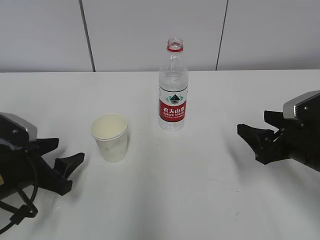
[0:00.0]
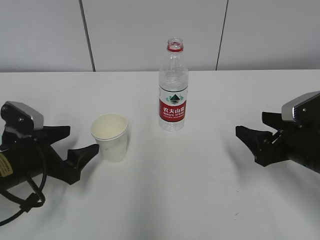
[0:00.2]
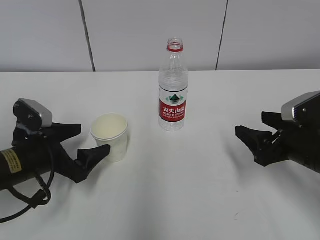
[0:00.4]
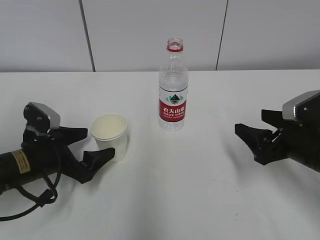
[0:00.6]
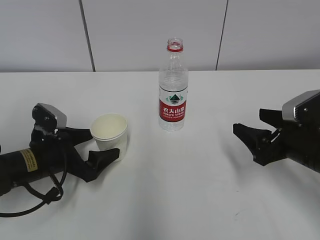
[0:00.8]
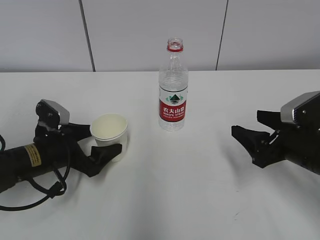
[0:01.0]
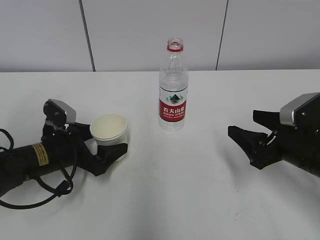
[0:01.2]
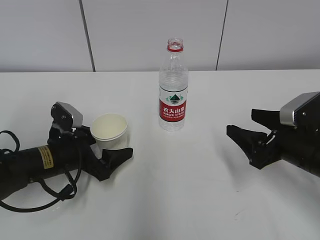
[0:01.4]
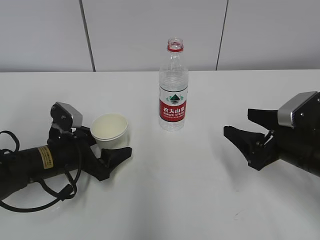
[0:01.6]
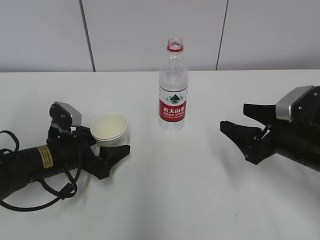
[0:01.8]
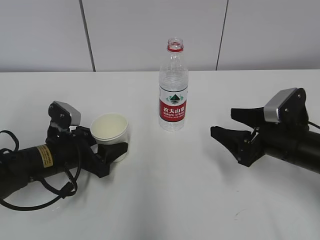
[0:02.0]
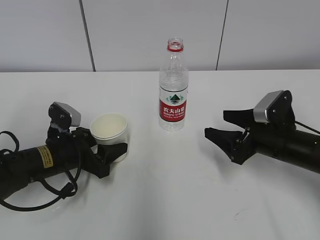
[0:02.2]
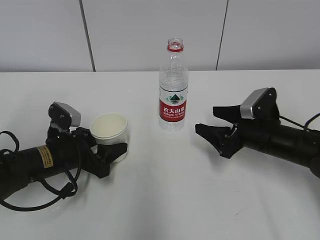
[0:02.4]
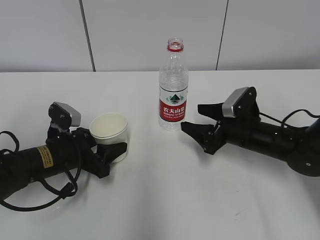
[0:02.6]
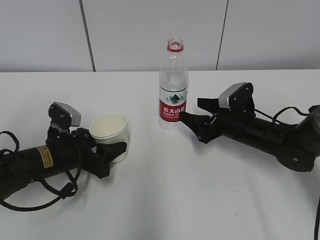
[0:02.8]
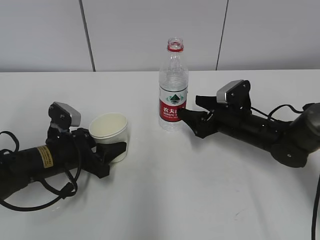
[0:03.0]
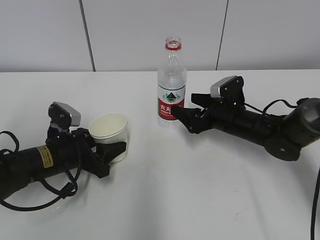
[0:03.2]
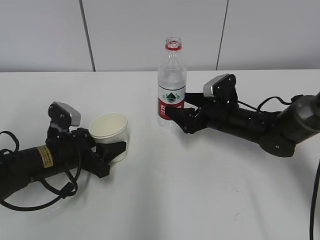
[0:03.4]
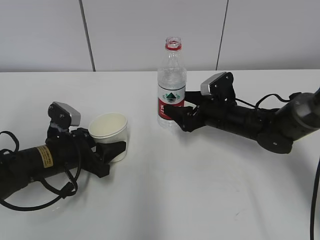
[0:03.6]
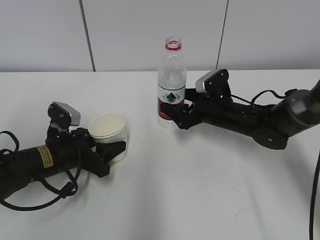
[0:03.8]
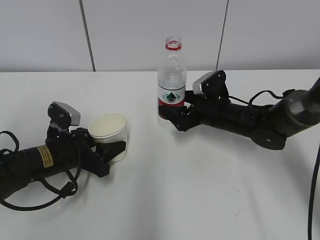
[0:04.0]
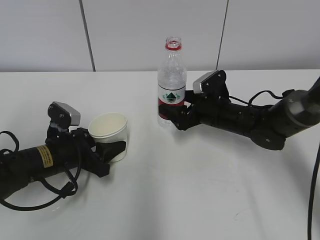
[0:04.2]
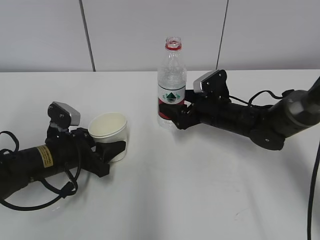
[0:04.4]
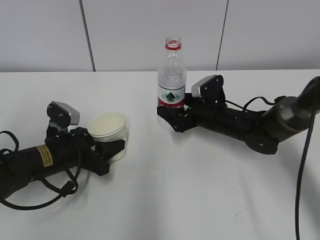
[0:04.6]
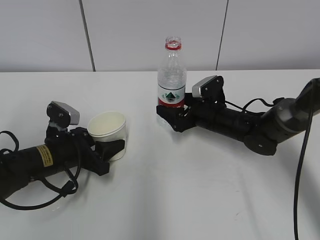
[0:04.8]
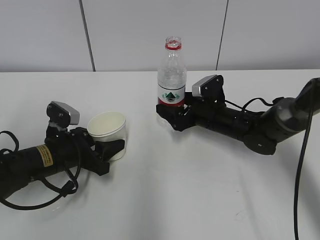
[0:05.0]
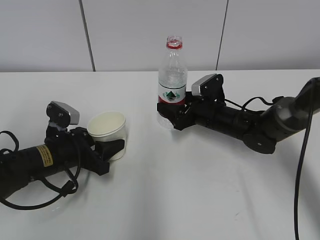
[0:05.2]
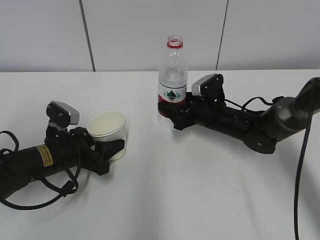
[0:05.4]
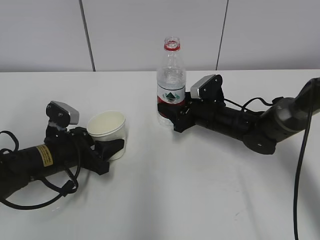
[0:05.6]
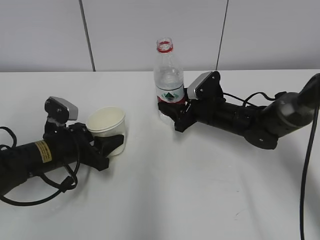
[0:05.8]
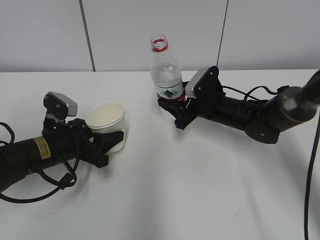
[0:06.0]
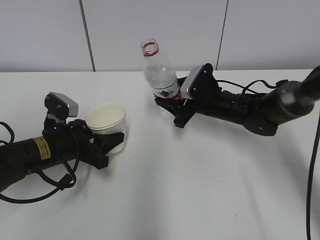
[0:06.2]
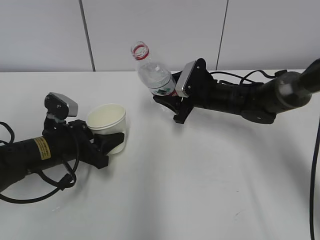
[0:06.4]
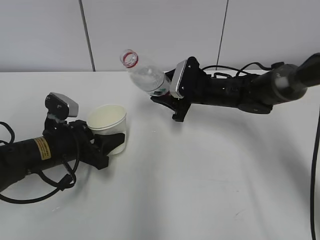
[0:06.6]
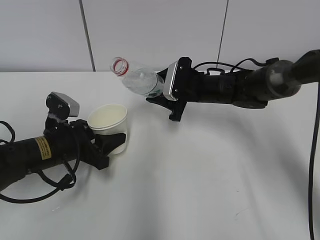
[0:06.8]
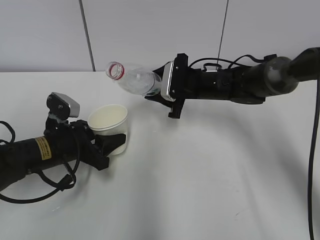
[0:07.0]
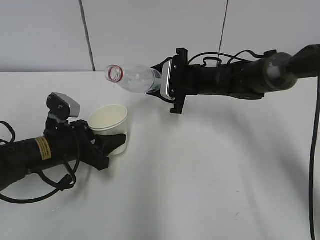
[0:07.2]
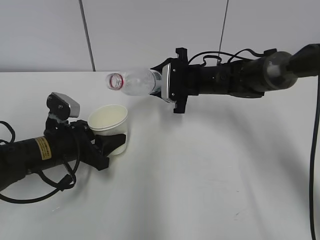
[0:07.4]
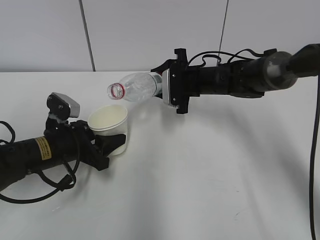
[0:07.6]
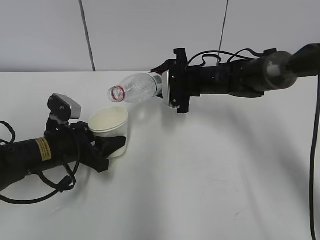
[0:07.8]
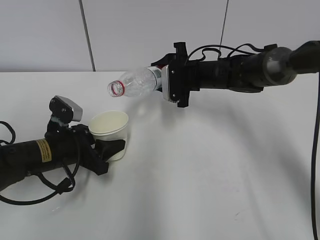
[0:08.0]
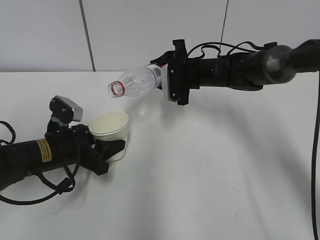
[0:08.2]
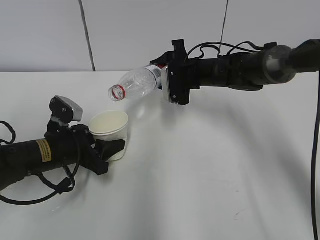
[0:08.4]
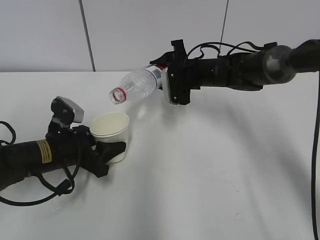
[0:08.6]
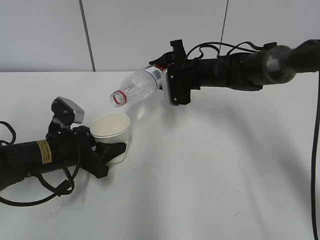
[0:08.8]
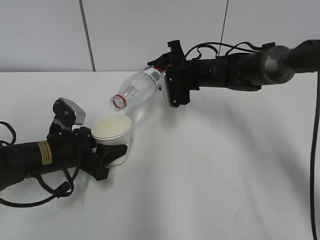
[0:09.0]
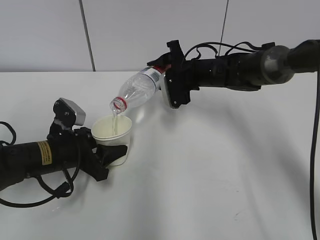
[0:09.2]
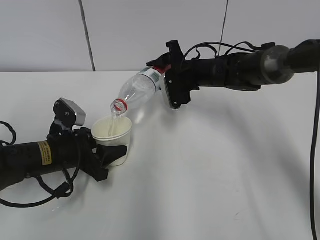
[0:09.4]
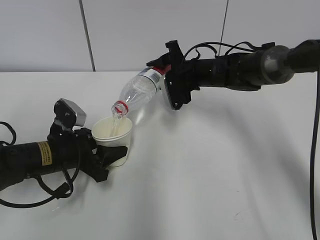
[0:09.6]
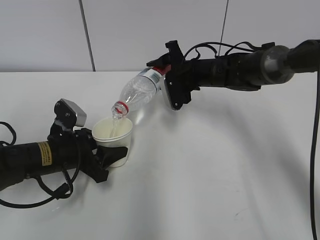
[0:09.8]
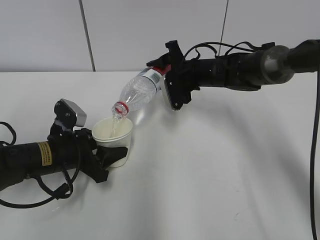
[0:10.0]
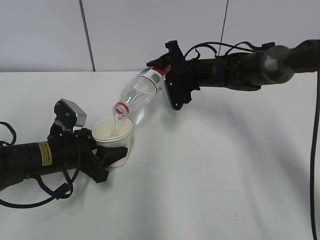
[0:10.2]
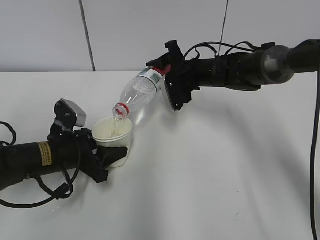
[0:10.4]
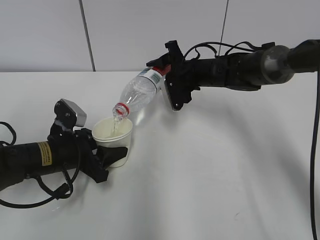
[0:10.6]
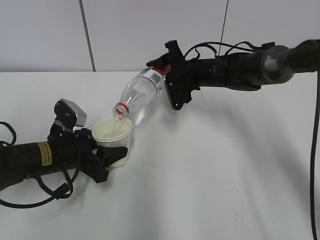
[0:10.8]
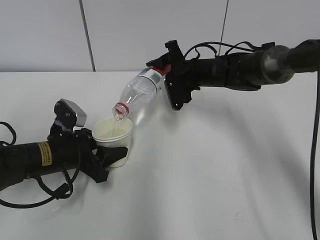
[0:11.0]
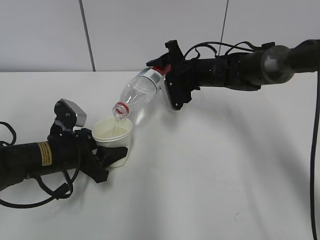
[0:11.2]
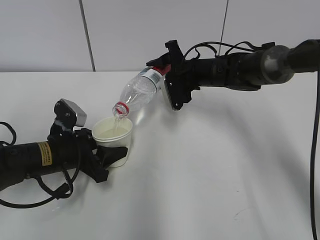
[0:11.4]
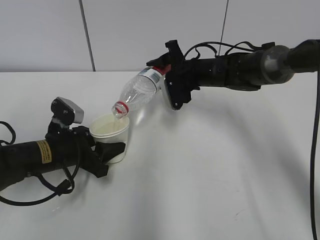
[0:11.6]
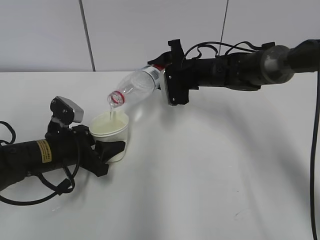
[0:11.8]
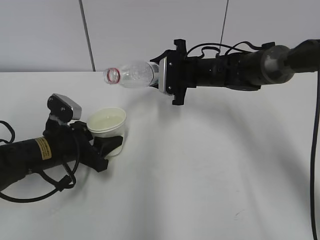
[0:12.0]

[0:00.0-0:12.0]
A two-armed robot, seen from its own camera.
Step, 0:00.0 to 0:03.6: Grab the water bottle with the right hand.
Step, 0:04.0 to 0:06.6: Lift the paper cup with the left hand.
Step, 0:06.8 to 0:09.0: Fill water with the left hand.
Step, 0:06.8 to 0:09.0: Pour water with the right hand.
0:00.0 to 0:01.6: The left gripper shifts approximately 10 cm forward and to the right.
0:01.6 to 0:03.0: The left gripper closes. Meanwhile the right gripper travels forward, downward and to the left by roughly 15 cm.
0:03.0 to 0:04.4: The right gripper opens up.
0:04.4 to 0:06.0: The right gripper closes up.
0:06.0 to 0:07.6: The right gripper ends up approximately 5 cm from where it was.
0:07.6 to 0:09.0: The grippers move only a little.
0:09.0 to 0:10.4: There are only small adjustments of the grippers.

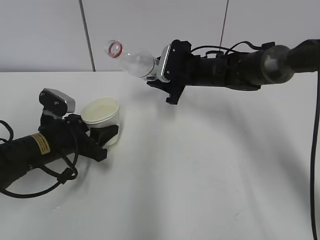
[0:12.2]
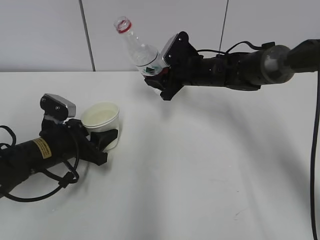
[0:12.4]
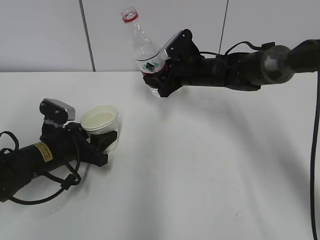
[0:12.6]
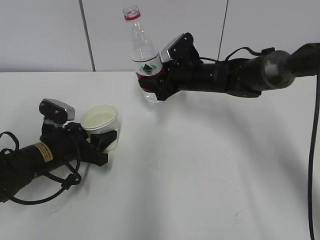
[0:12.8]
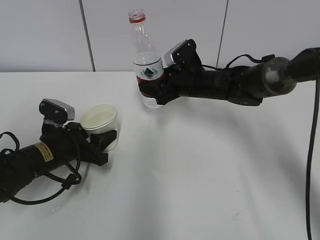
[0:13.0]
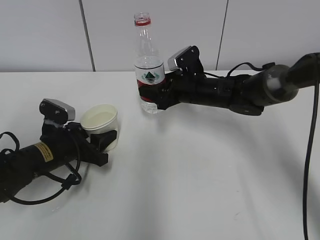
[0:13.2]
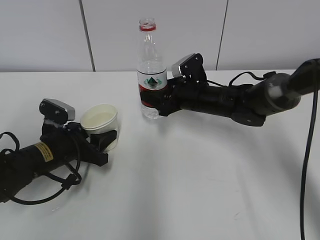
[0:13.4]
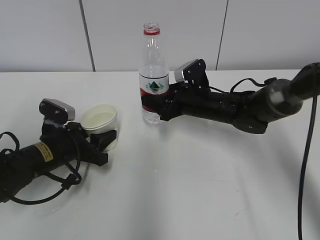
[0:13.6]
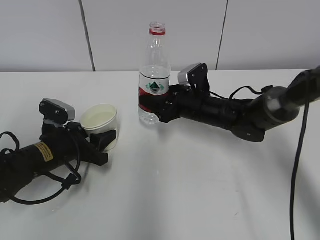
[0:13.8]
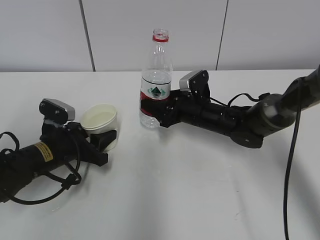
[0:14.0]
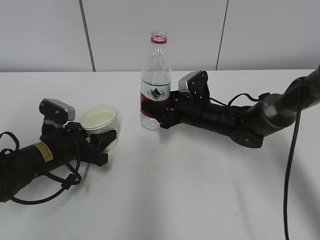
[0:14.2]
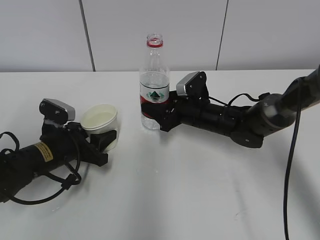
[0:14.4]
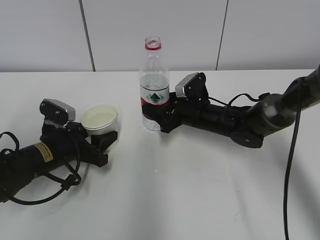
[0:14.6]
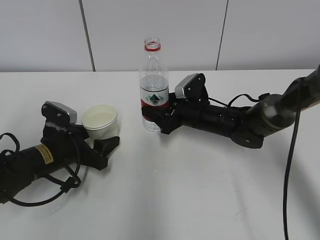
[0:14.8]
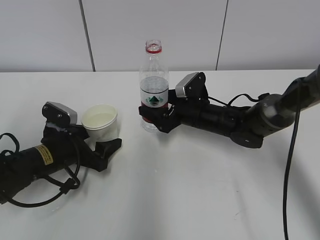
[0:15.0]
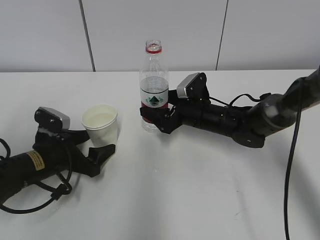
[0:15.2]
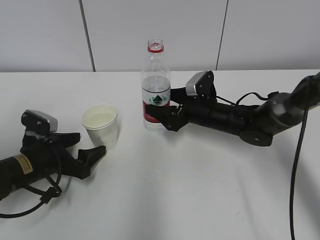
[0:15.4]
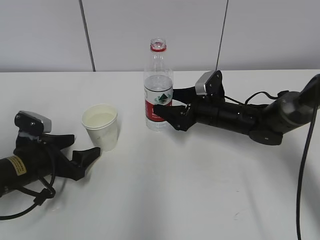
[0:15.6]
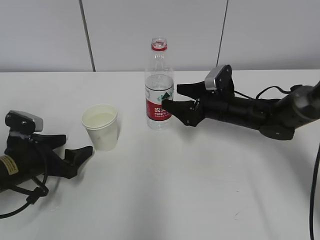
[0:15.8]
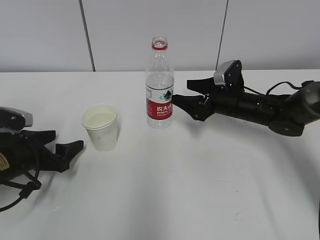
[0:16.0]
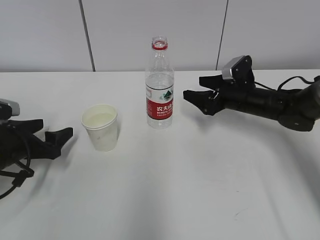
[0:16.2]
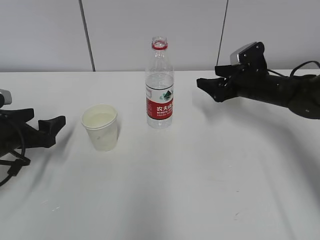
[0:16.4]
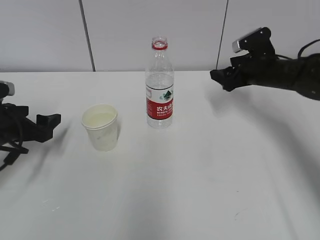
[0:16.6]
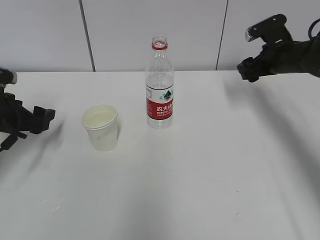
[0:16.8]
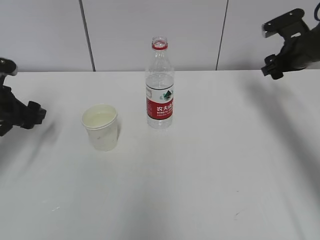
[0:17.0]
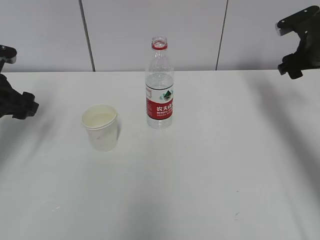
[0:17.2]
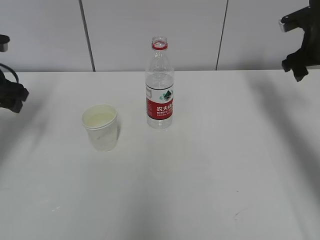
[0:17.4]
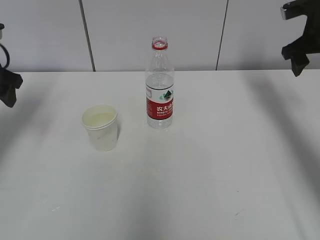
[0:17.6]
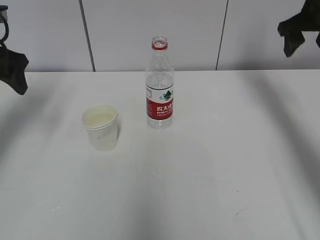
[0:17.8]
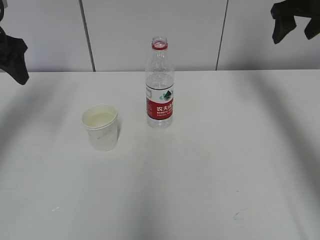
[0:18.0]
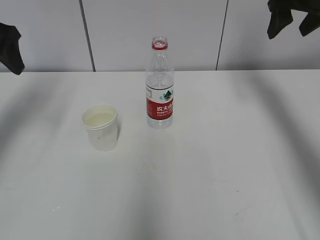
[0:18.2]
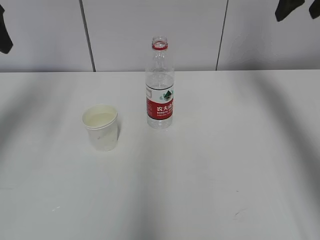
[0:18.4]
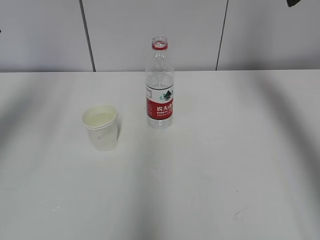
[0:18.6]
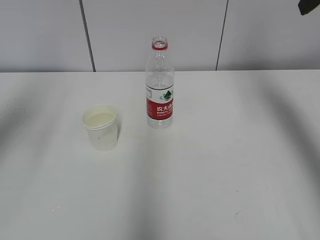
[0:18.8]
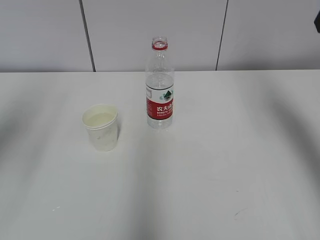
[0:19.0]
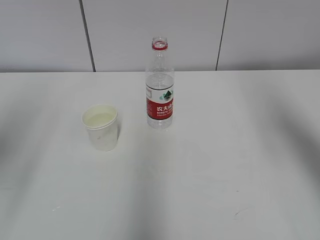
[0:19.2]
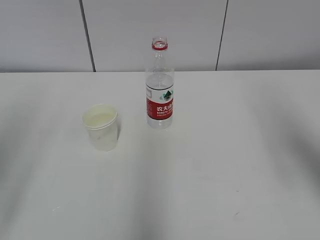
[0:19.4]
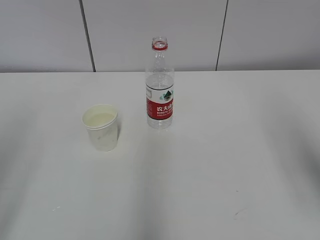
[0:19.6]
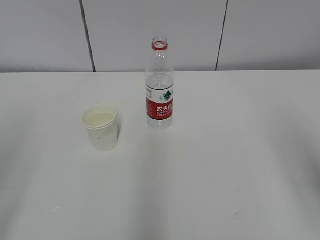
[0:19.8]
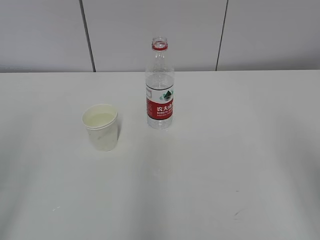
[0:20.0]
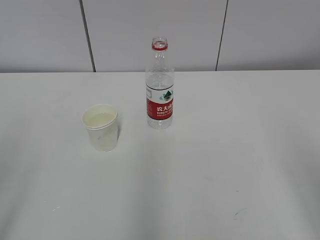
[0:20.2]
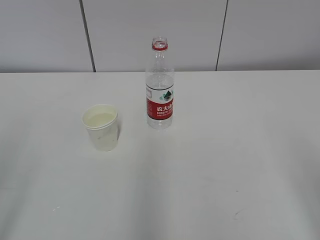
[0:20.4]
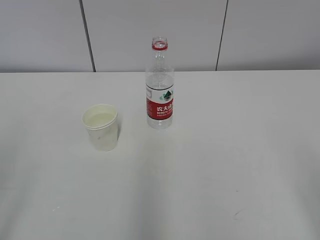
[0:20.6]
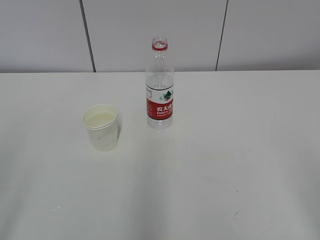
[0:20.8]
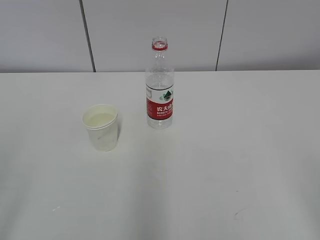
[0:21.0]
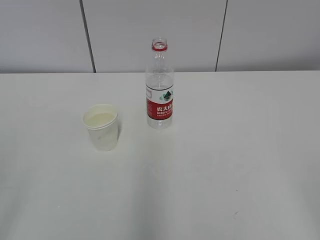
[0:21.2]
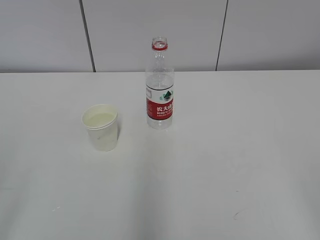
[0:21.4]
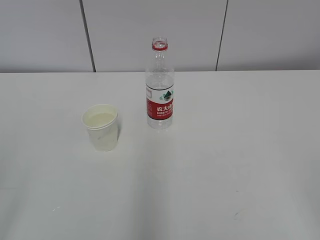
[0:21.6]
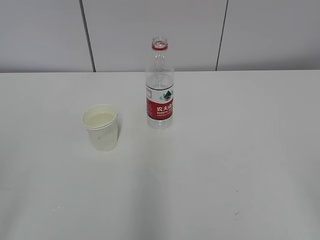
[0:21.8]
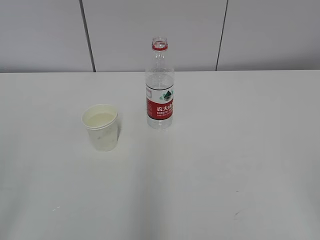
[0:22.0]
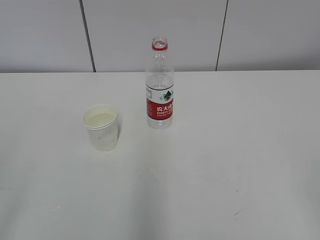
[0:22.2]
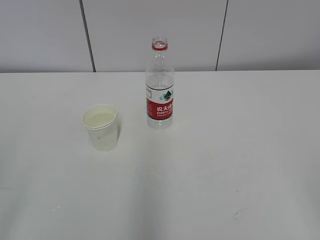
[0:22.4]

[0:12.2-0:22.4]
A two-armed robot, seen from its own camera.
0:12.2 to 0:13.6: The right gripper travels backward by approximately 5 cm.
0:13.6 to 0:15.2: The right gripper opens up. The left gripper opens up.
0:15.2 to 0:16.6: The right gripper heads to the right and upward, covering about 15 cm. Meanwhile the left gripper shifts about 10 cm to the left and upward.
0:16.6 to 0:18.0: Both grippers move upward, roughly 20 cm.
0:18.0 to 0:19.4: The grippers both shift backward by about 25 cm.
0:19.4 to 0:21.0: The right gripper moves backward and downward, roughly 25 cm.
